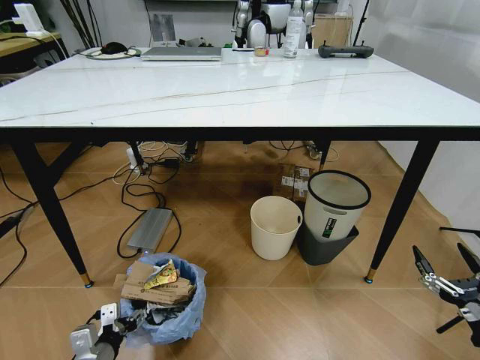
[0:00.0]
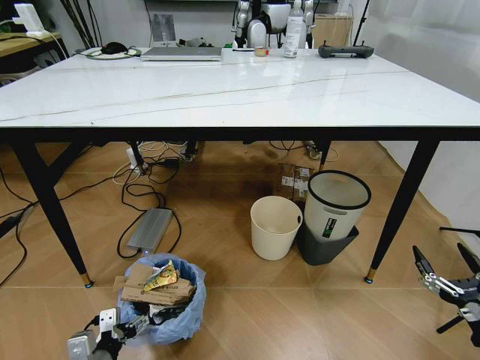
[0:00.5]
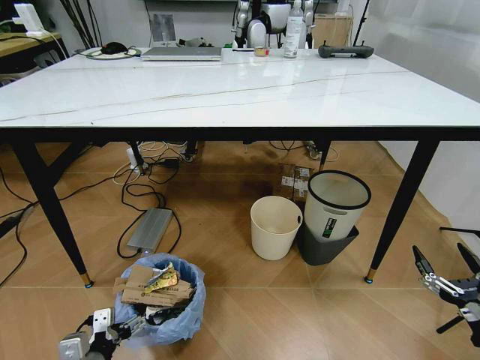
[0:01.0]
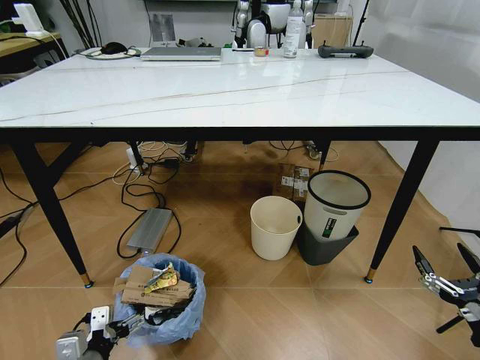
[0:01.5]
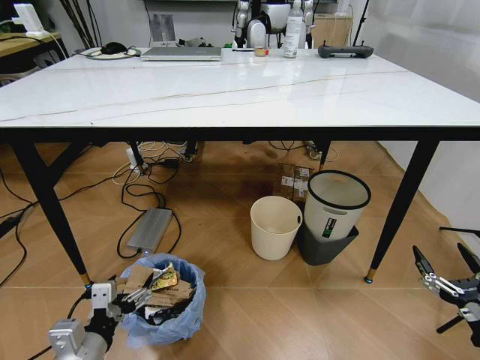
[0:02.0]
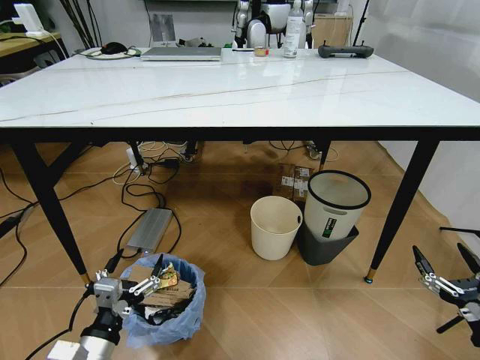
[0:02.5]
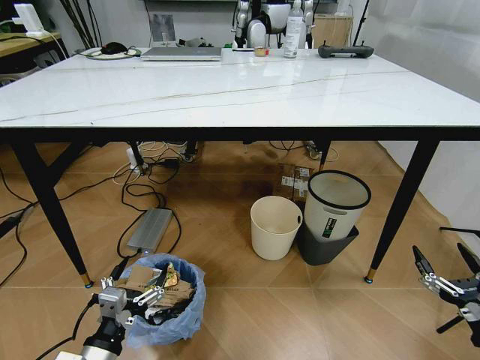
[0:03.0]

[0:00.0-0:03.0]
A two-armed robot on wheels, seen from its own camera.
Task of the whole recording: Pick up the trash bin and place the trash from the table into it.
0:00.0 to 0:01.5: The left gripper changes place by roughly 5 cm.
